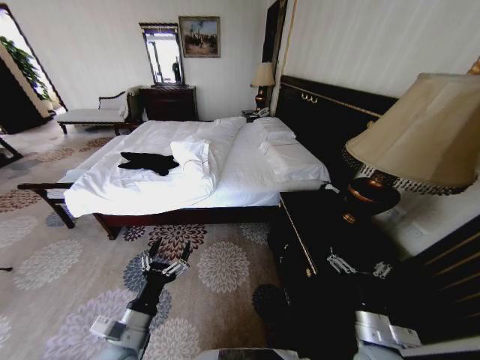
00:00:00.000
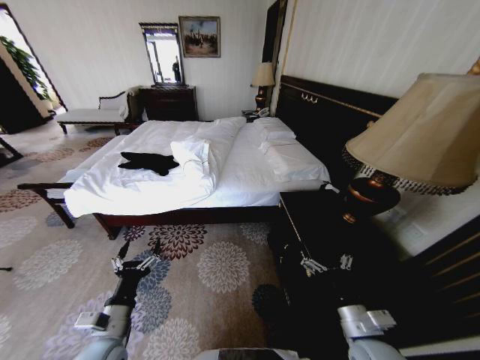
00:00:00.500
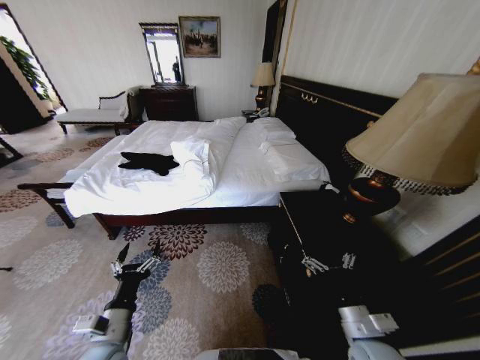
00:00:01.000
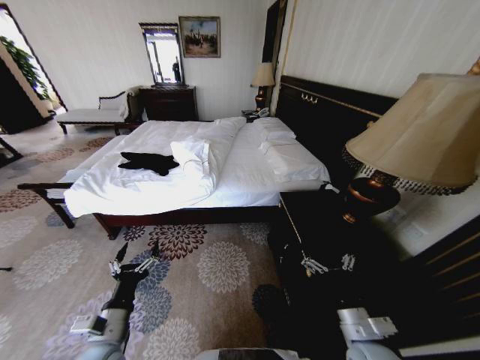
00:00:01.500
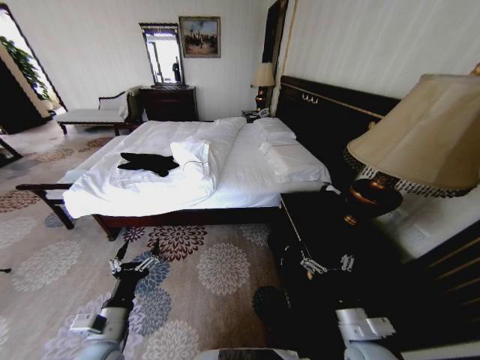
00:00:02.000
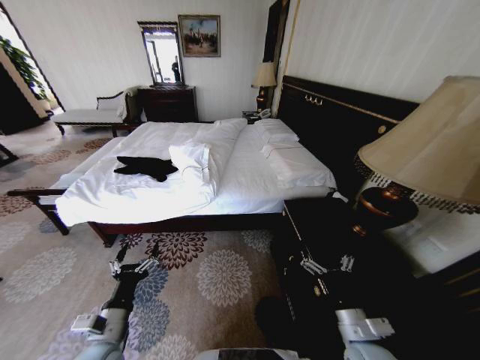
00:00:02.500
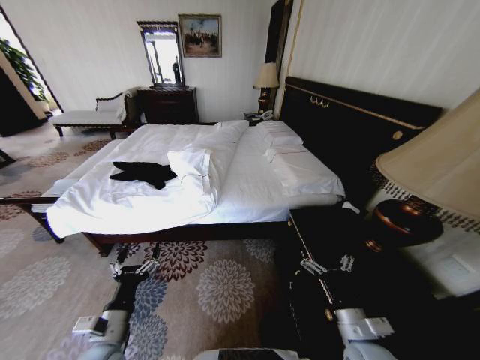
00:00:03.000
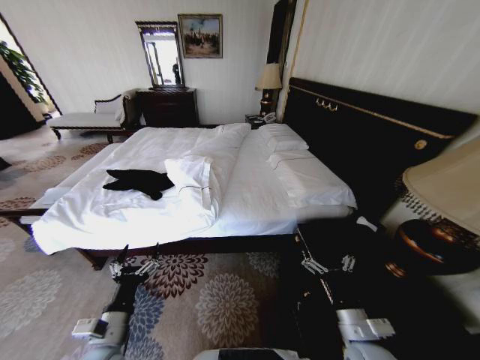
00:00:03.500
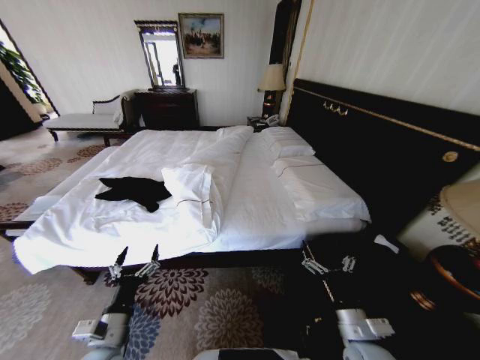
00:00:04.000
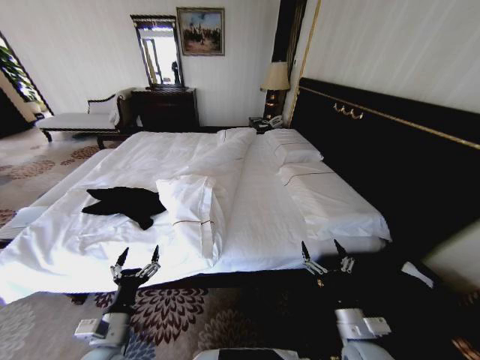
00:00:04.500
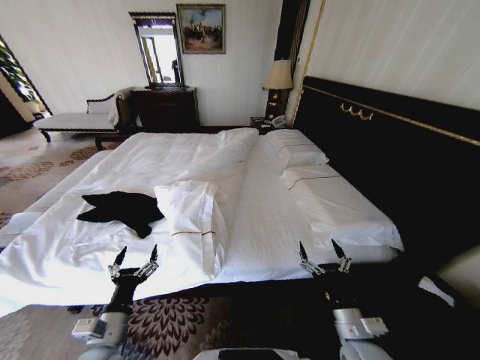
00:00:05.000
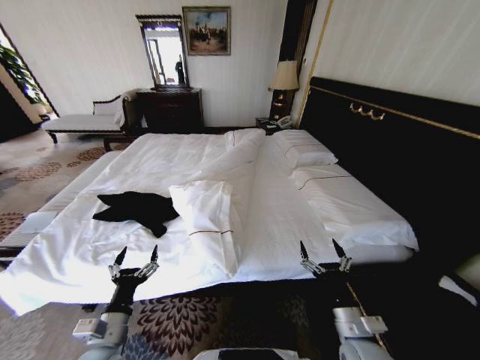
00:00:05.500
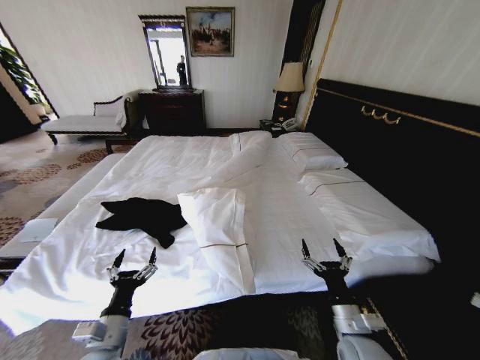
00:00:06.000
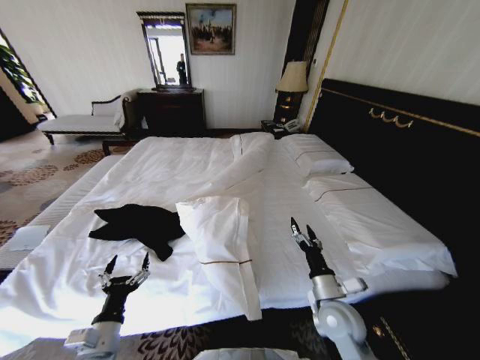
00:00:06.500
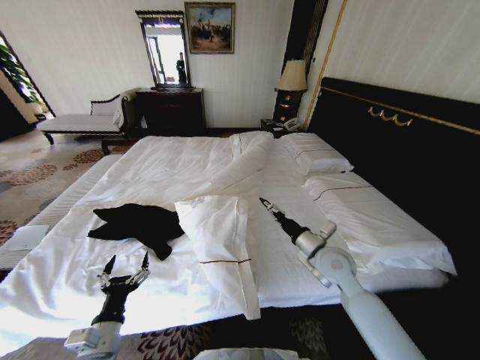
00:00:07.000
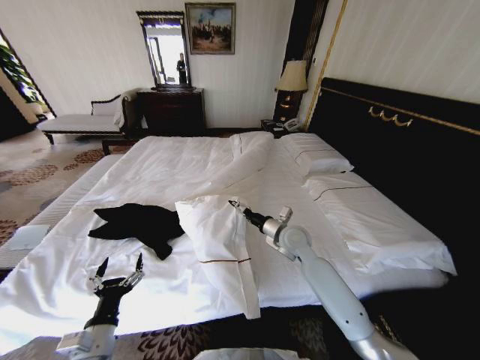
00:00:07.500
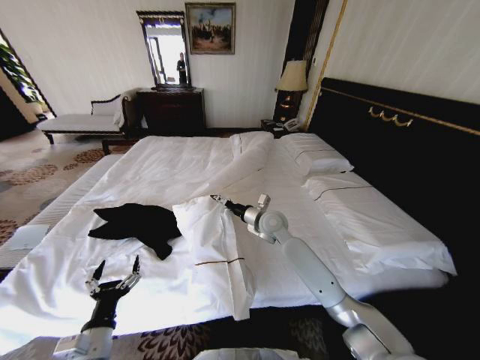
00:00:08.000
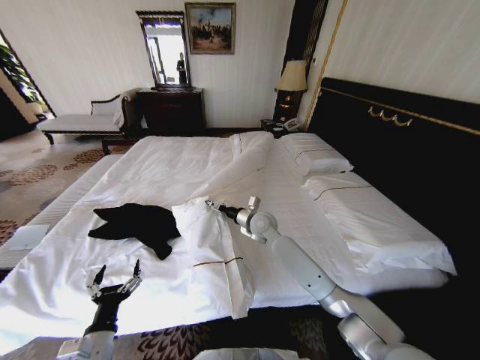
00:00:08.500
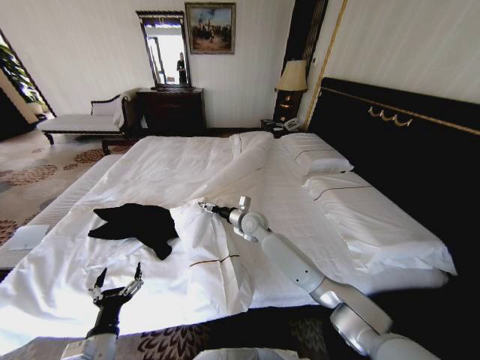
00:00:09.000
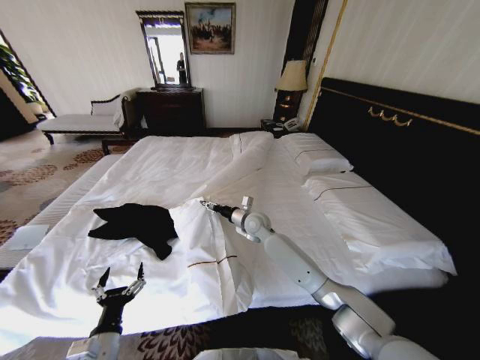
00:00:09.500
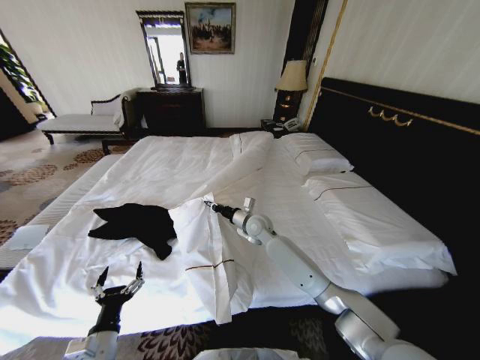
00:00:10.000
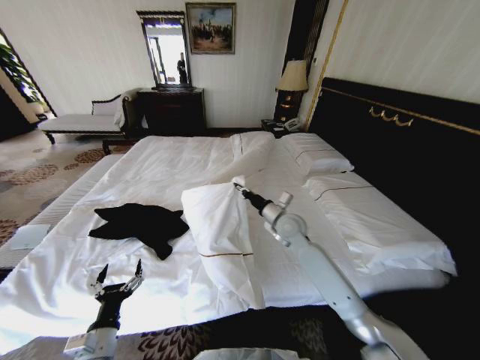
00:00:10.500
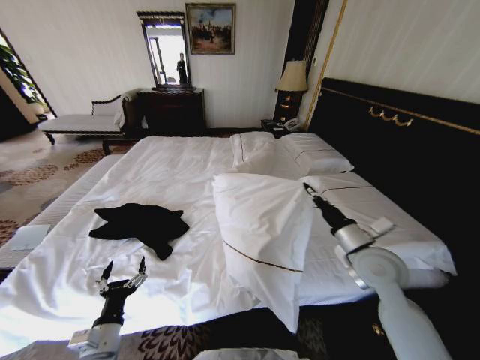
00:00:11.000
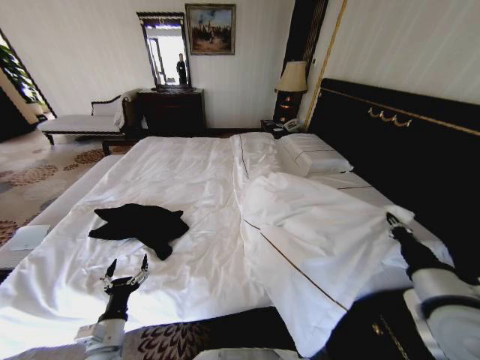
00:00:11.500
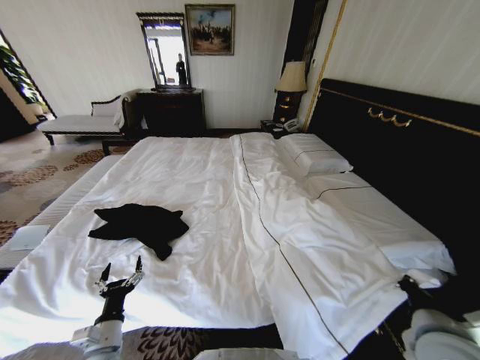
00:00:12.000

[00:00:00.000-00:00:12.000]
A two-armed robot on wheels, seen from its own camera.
Task of the whole recording: Fold the clothes on the bed.
00:00:06.000 to 00:00:08.000: The right gripper shifts roughly 35 cm forward and to the left.
00:00:08.000 to 00:00:10.000: The right gripper changes place by some 5 cm, and closes up.
00:00:10.000 to 00:00:12.000: The right gripper shifts approximately 40 cm backward and to the right.

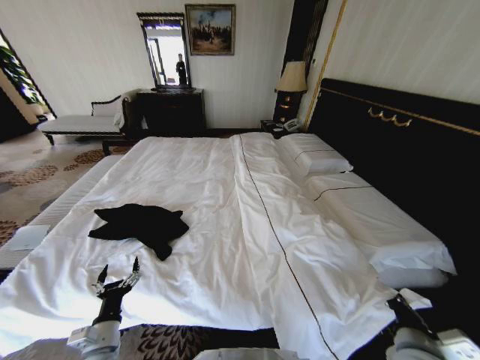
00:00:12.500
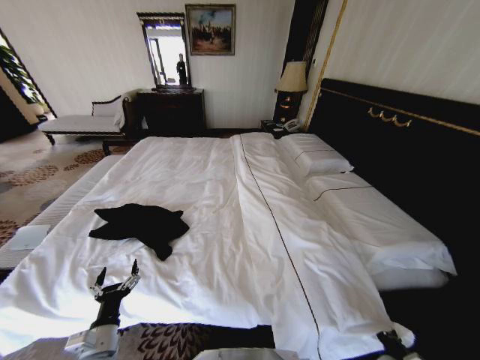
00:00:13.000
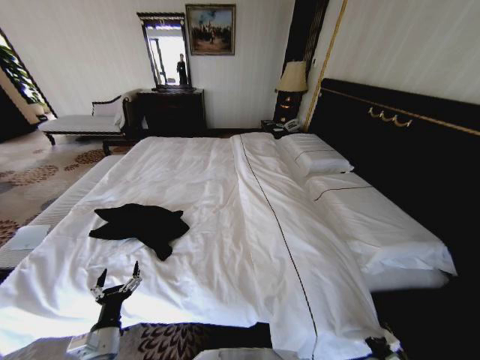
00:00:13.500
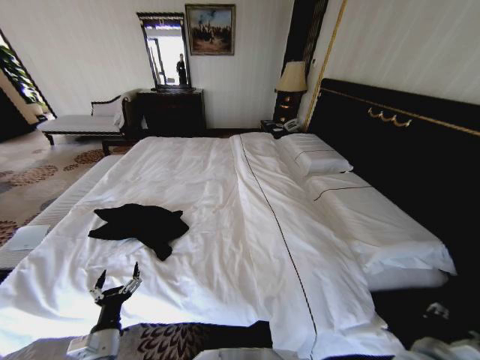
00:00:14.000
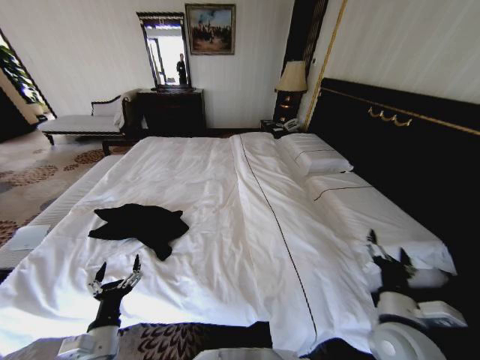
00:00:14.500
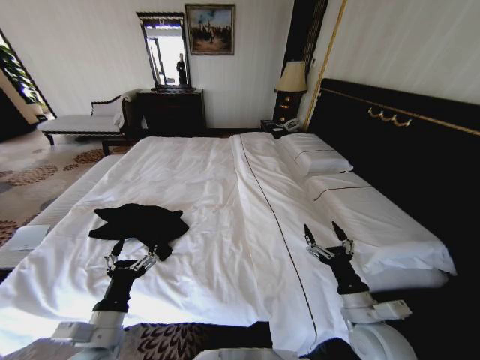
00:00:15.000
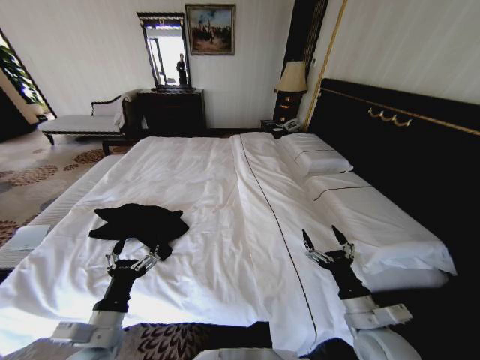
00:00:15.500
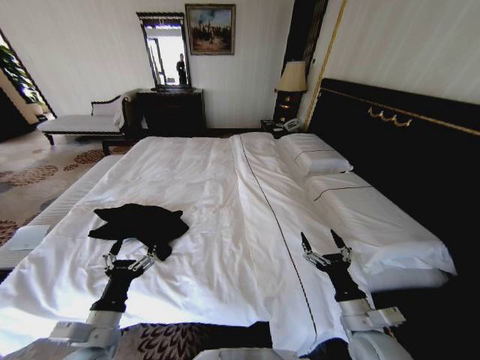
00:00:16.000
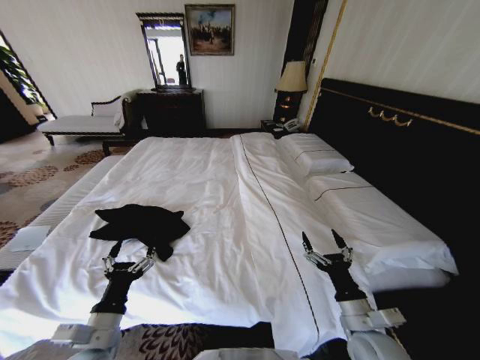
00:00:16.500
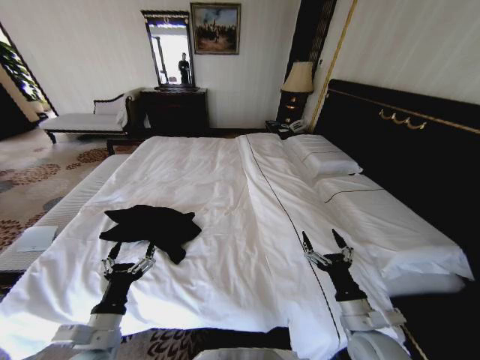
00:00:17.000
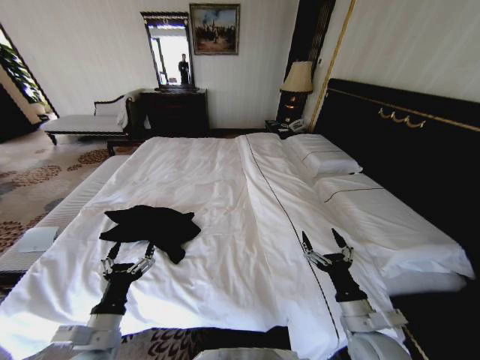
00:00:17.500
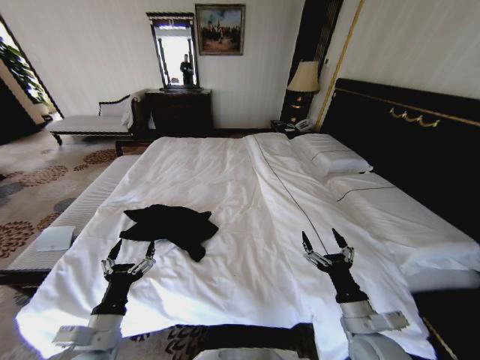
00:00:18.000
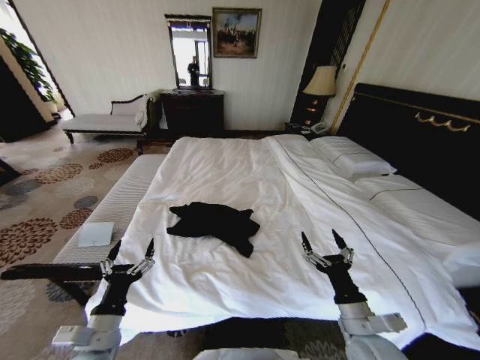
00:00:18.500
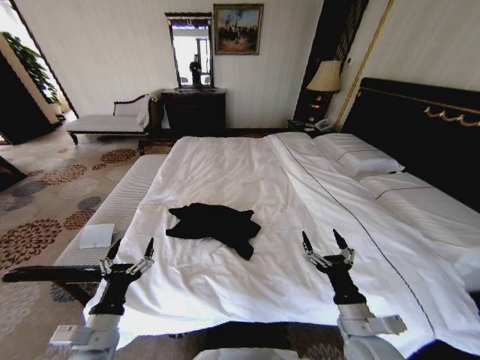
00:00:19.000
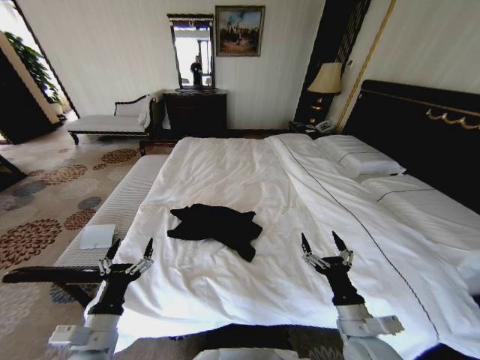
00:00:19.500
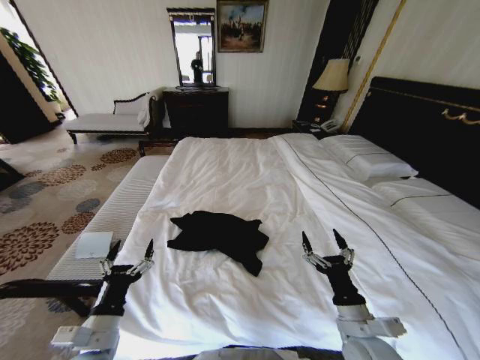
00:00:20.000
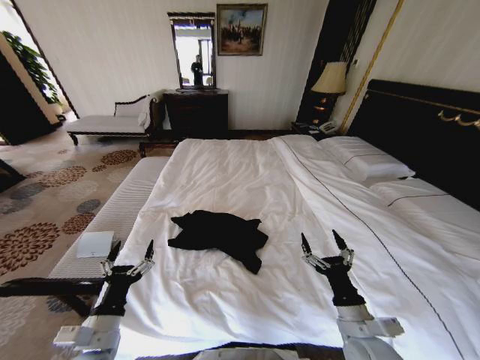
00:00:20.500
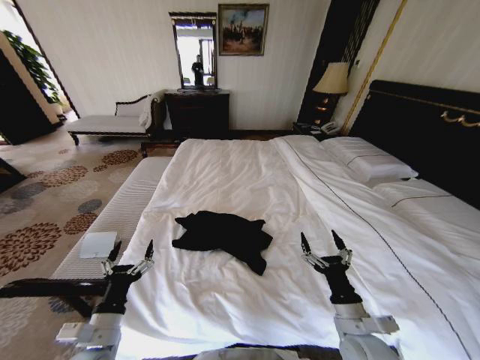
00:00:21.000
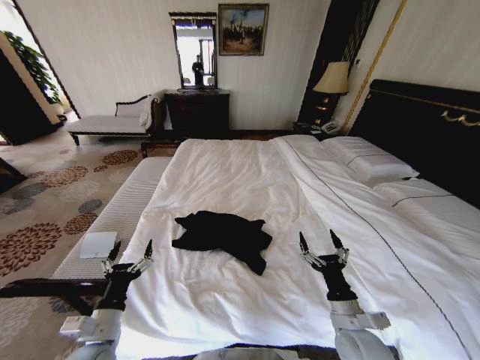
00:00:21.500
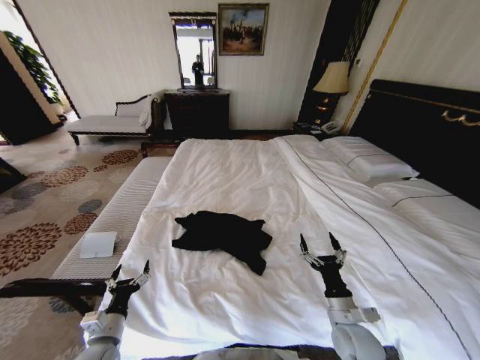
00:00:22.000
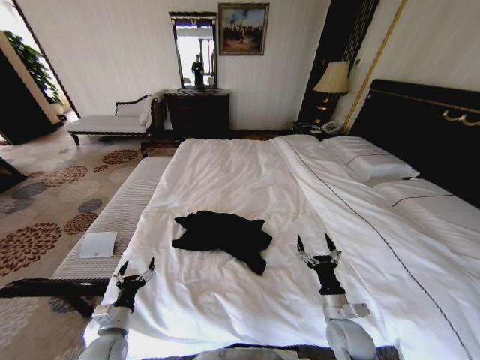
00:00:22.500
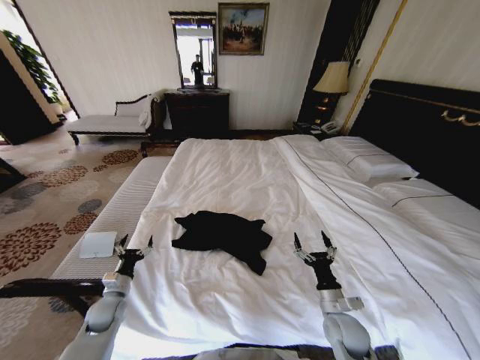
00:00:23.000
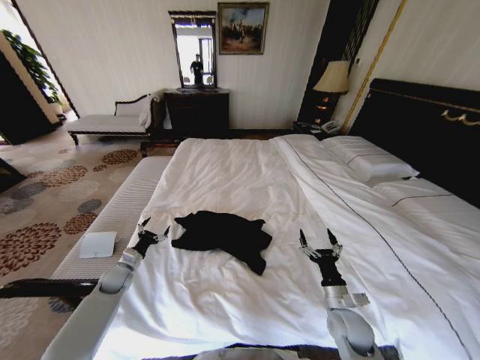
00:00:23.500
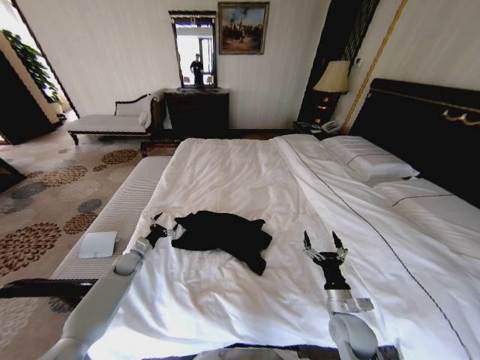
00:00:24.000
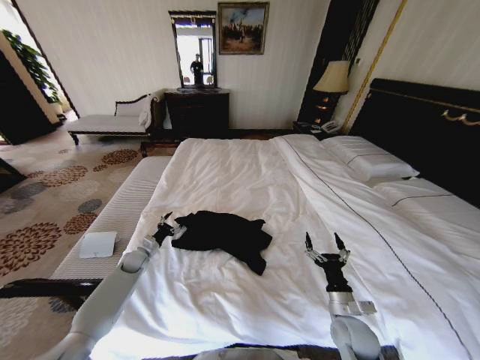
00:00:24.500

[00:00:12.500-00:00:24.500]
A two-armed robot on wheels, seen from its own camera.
Task of the whole recording: Fold the clothes on the bed.
00:00:12.500 to 00:00:14.500: The right gripper moves approximately 20 cm downward and comes back, and opens up, while the left gripper changes place by approximately 5 cm.
00:00:14.500 to 00:00:16.500: The left gripper goes approximately 5 cm upward; the right gripper shifts by some 5 cm.
00:00:20.500 to 00:00:22.500: Both grippers travel together downward, roughly 10 cm.
00:00:22.500 to 00:00:24.500: The left gripper is displaced forward by about 25 cm.

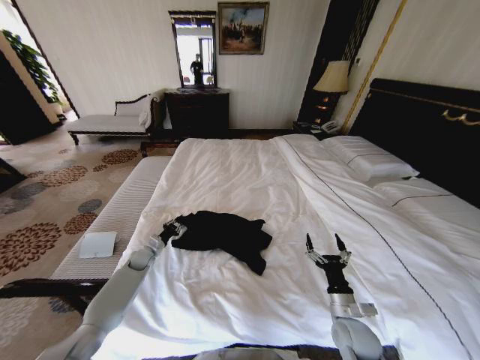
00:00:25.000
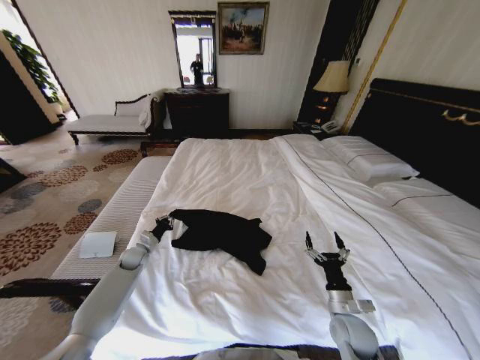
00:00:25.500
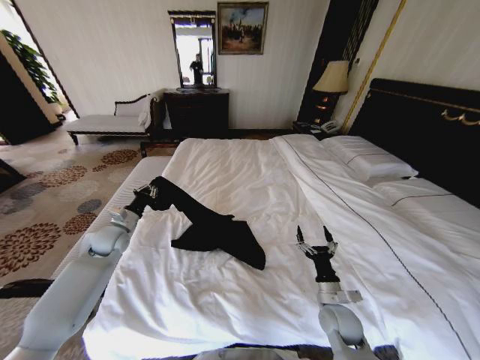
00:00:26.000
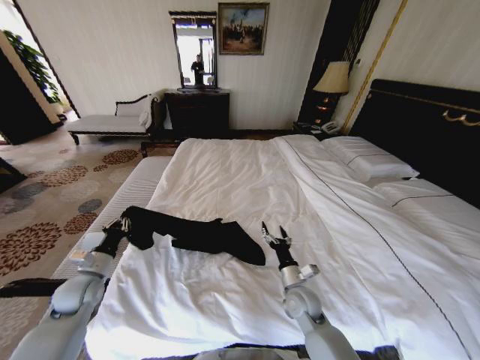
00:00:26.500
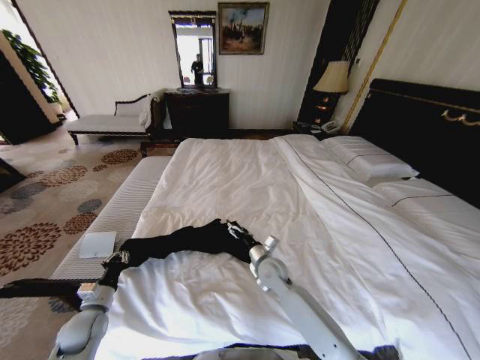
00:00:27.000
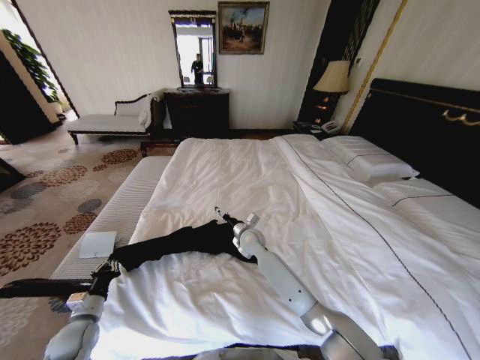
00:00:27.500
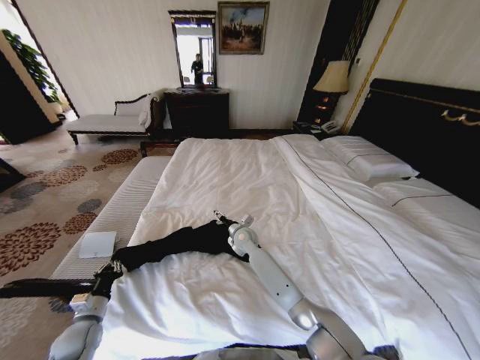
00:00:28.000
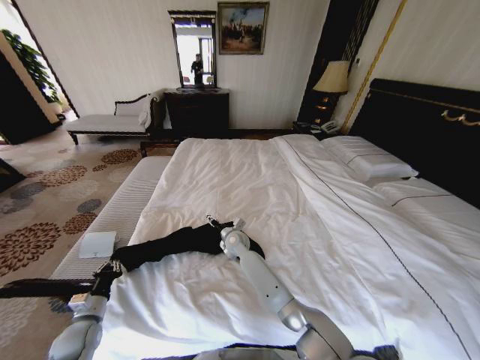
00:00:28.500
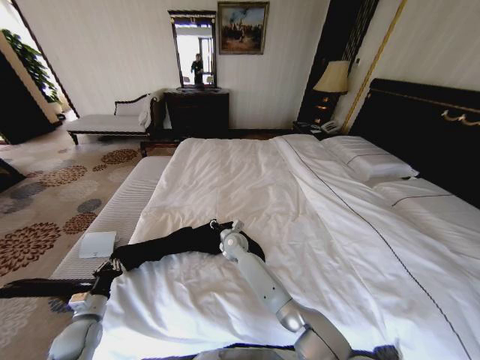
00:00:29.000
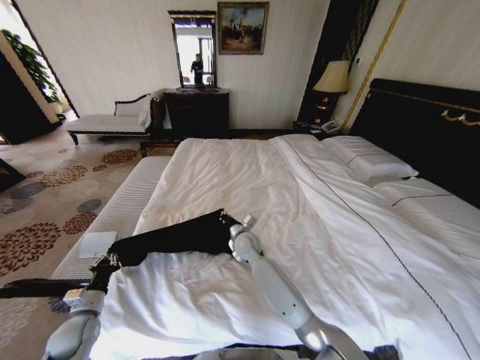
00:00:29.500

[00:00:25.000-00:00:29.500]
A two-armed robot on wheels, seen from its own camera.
Task of the whole recording: Fold the clothes on the bed.
00:00:25.000 to 00:00:27.000: The right gripper travels to the left and forward by some 25 cm; the left gripper shifts some 20 cm backward.
00:00:27.000 to 00:00:29.500: The right gripper heads forward and to the left, covering approximately 15 cm, and closes.
